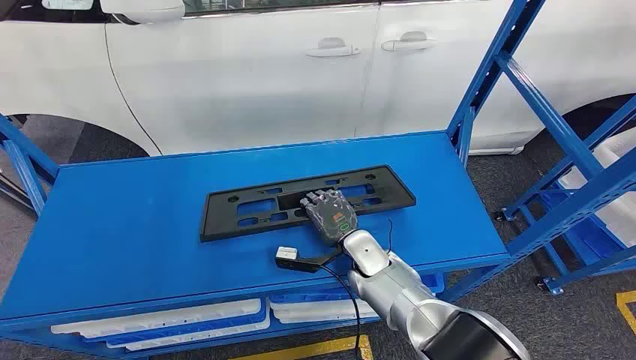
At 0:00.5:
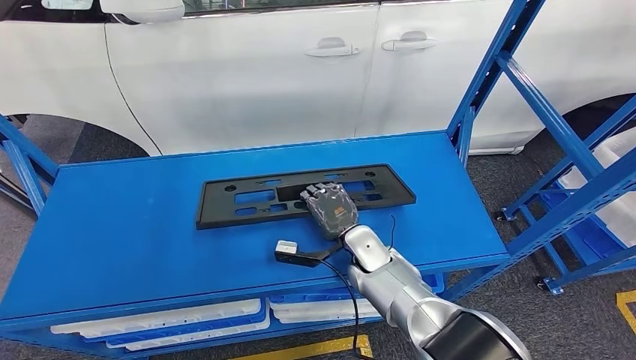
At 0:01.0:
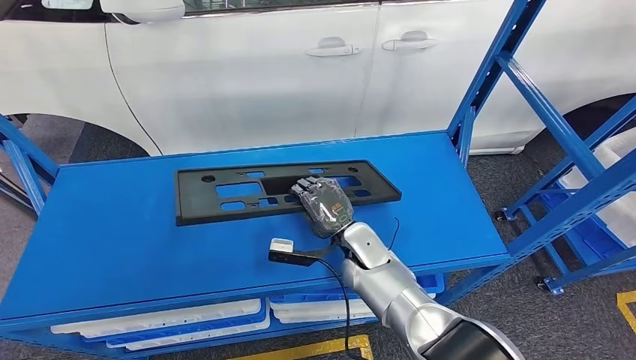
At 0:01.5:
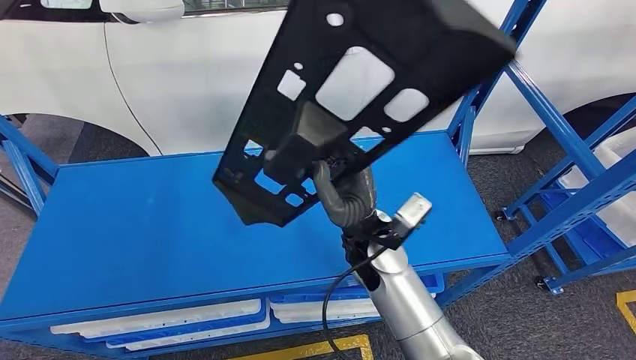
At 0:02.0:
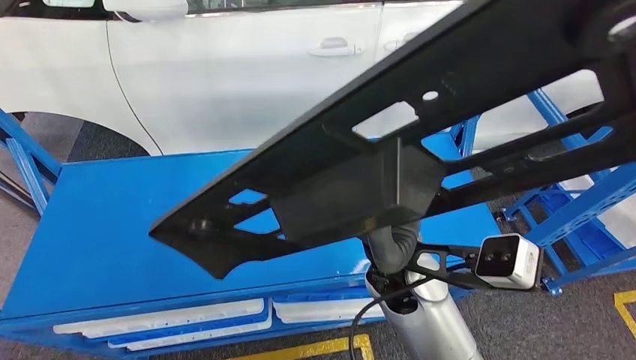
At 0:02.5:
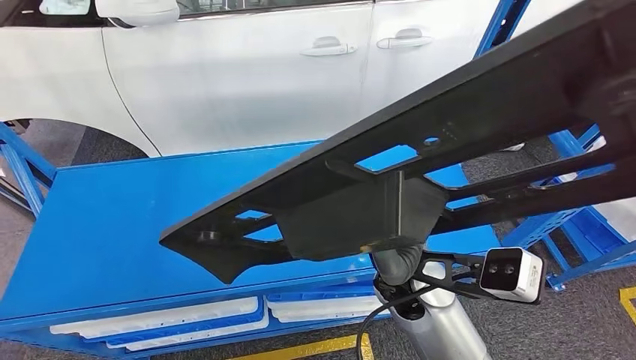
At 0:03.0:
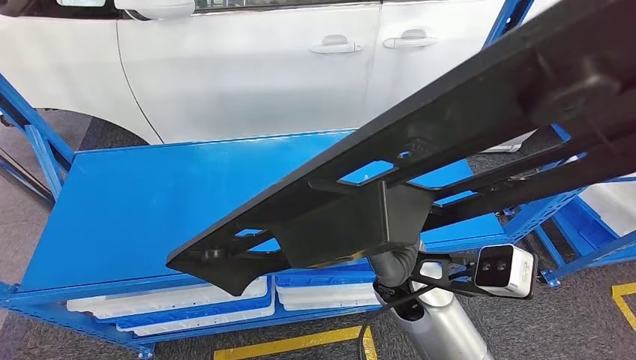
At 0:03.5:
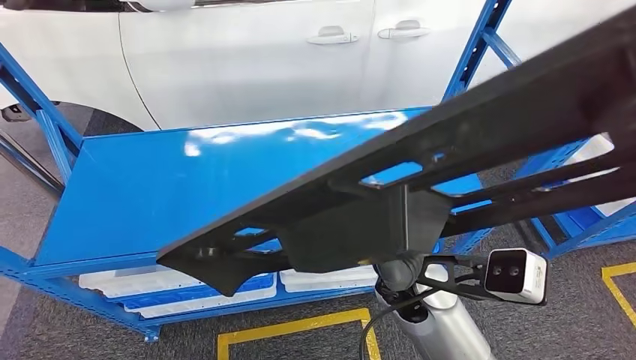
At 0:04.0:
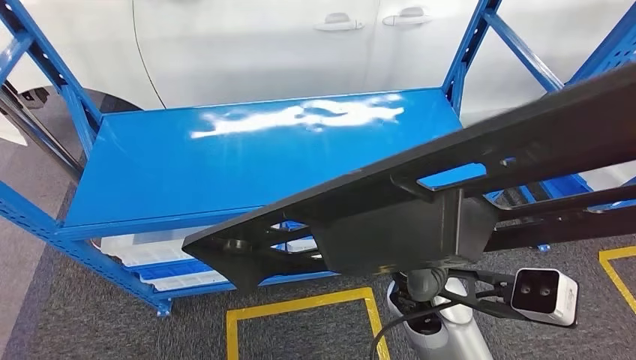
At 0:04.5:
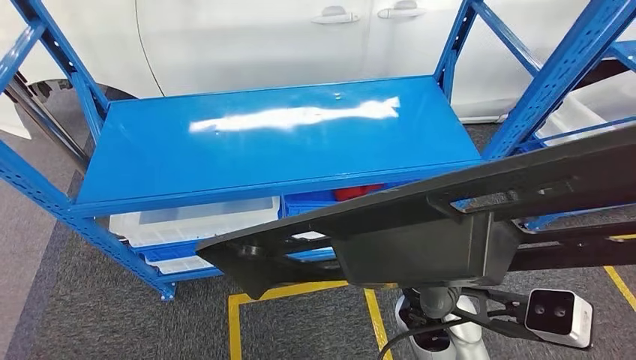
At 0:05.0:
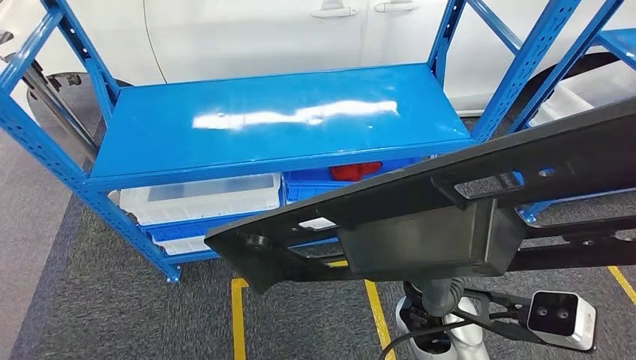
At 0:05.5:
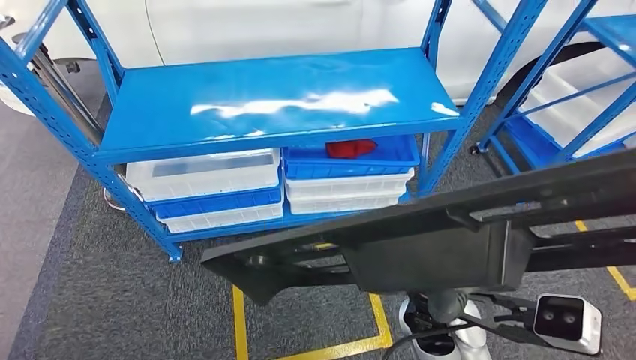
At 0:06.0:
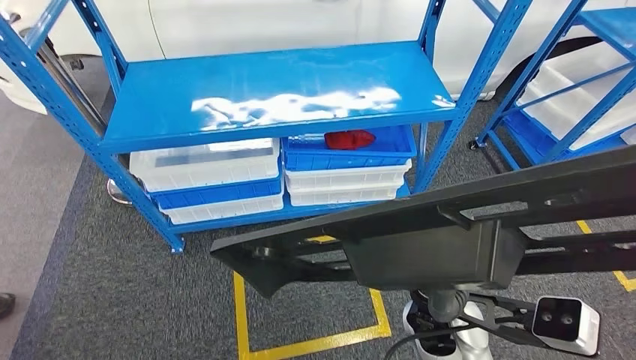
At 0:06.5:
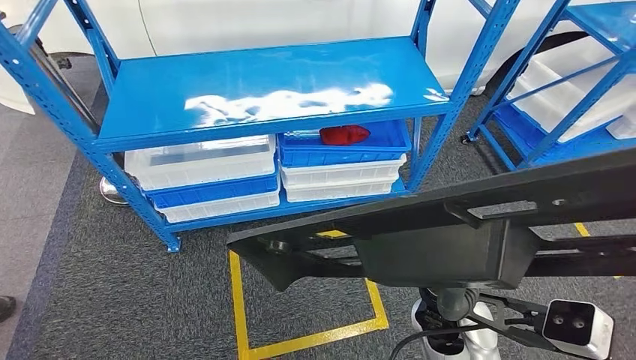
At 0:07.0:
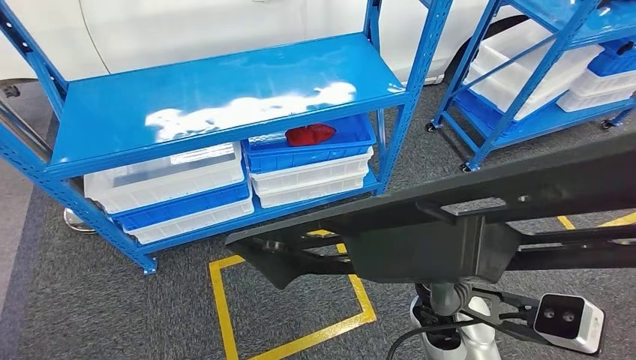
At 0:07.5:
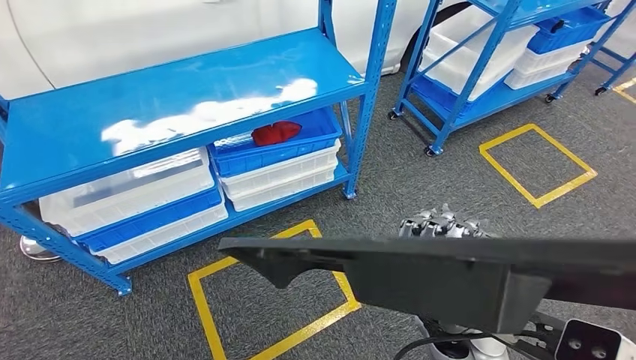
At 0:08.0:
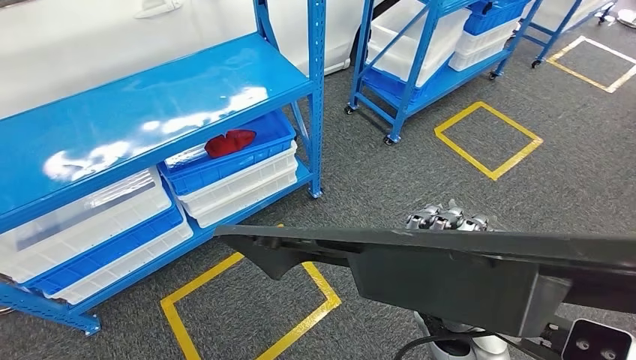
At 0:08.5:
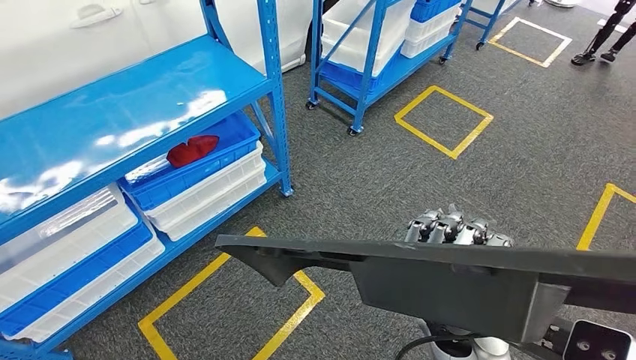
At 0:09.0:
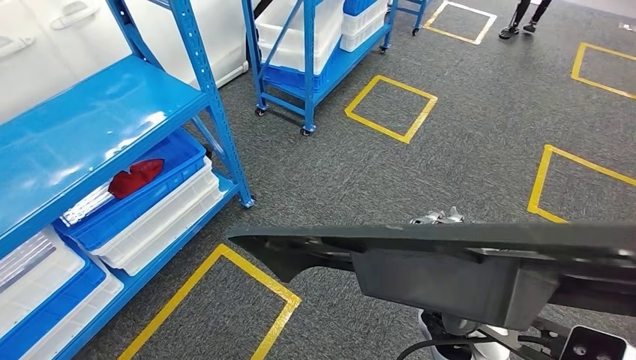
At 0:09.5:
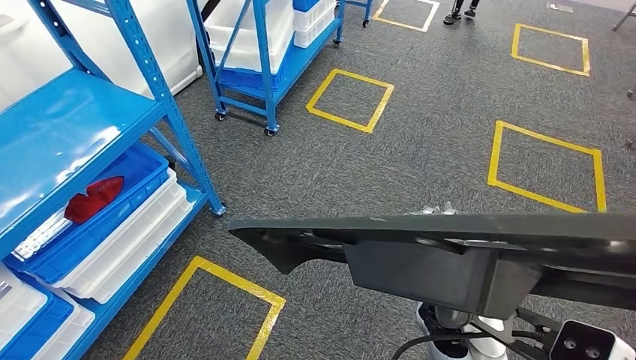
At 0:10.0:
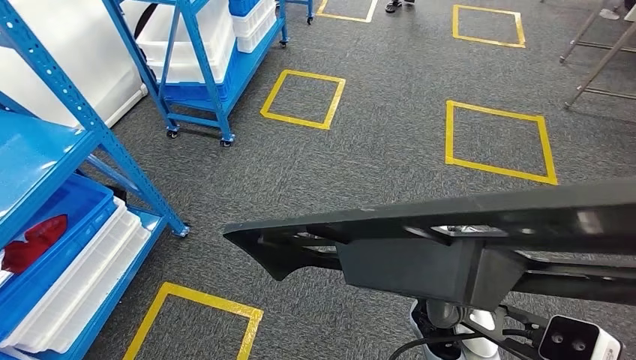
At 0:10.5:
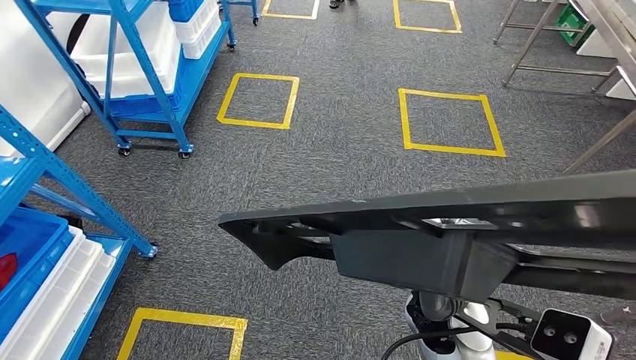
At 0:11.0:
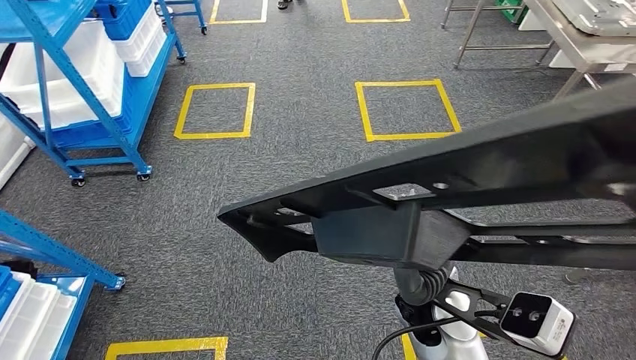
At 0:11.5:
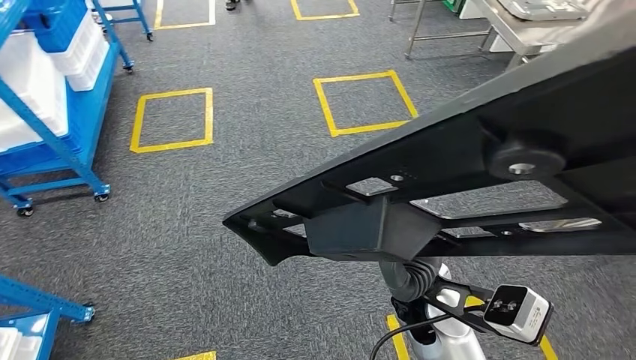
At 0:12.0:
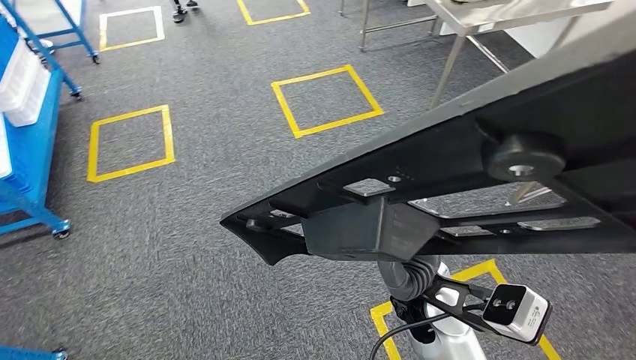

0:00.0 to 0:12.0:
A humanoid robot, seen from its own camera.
Step, 0:00.0 to 0:01.0: Pick up the large material from the shelf.

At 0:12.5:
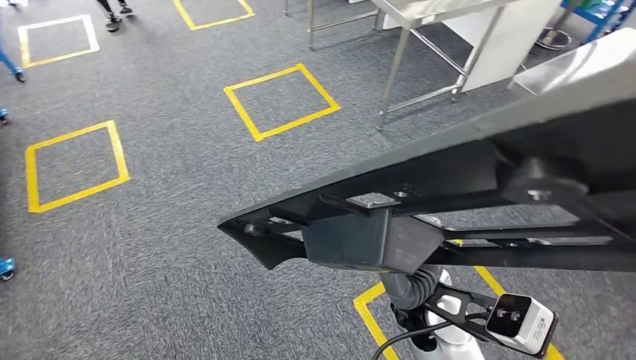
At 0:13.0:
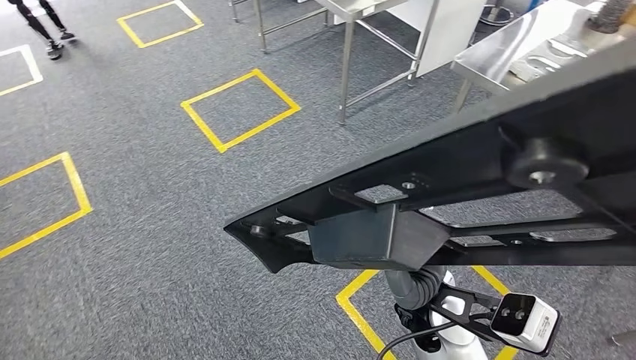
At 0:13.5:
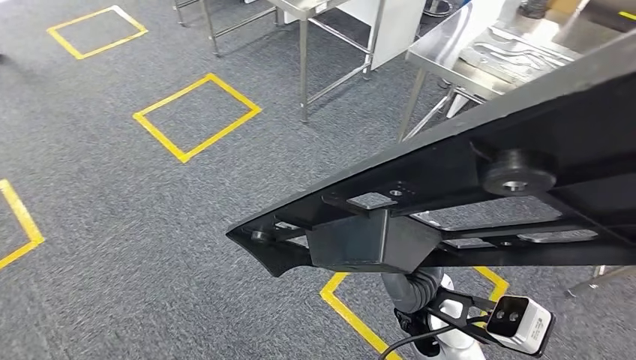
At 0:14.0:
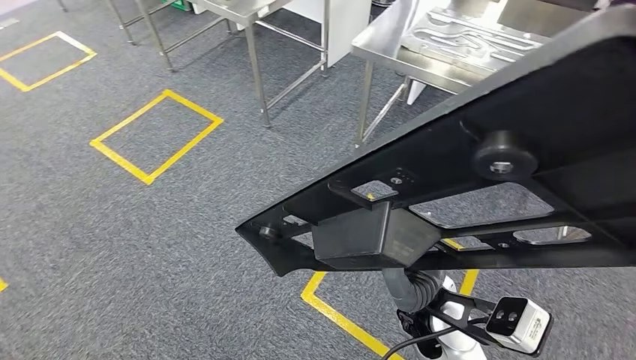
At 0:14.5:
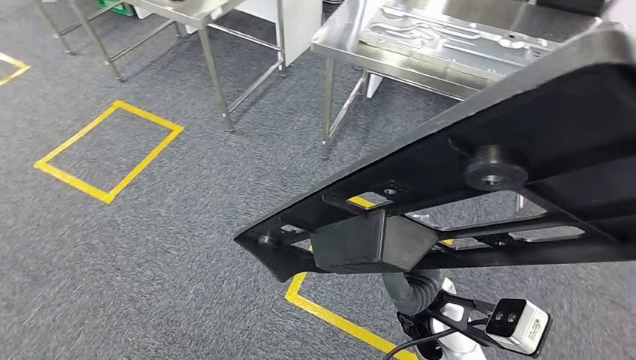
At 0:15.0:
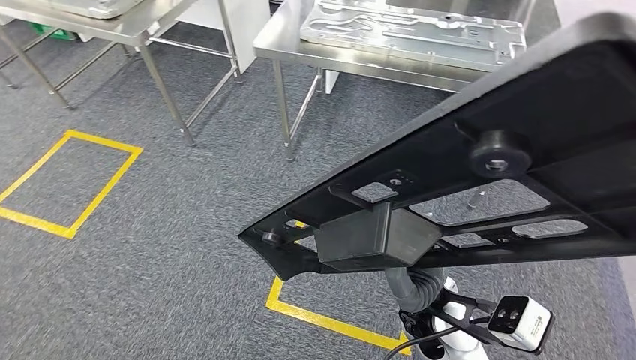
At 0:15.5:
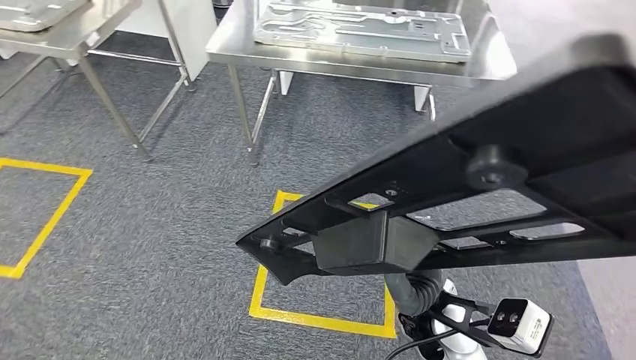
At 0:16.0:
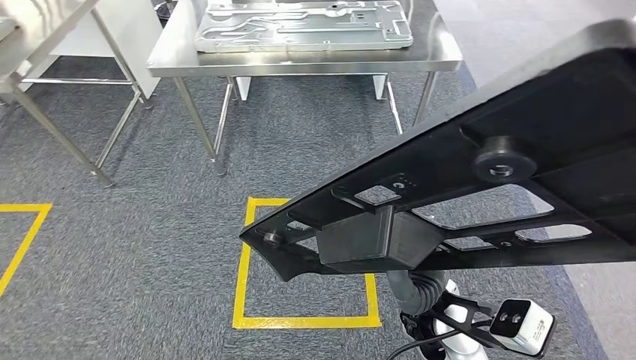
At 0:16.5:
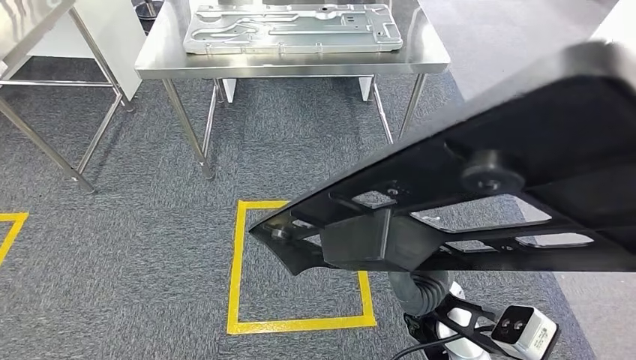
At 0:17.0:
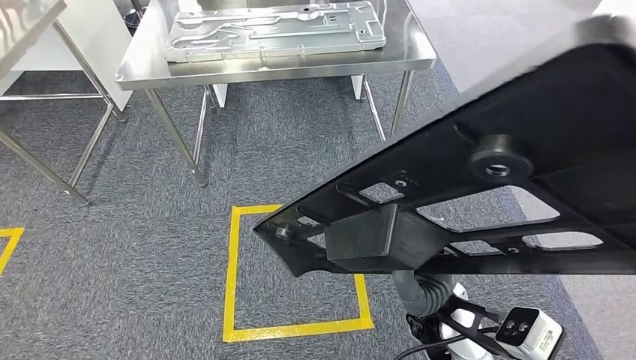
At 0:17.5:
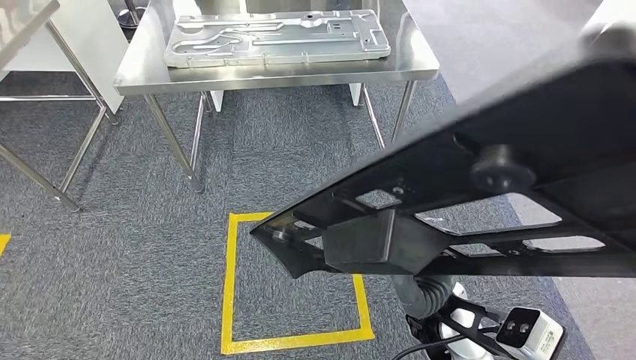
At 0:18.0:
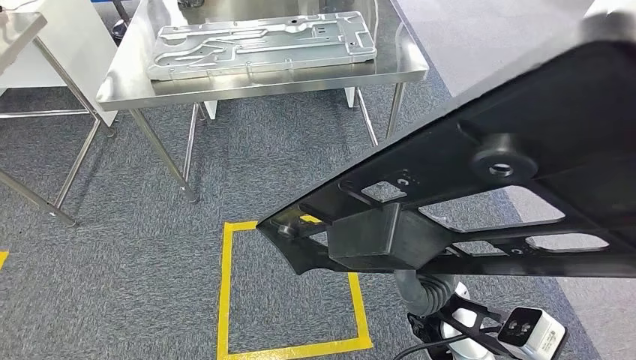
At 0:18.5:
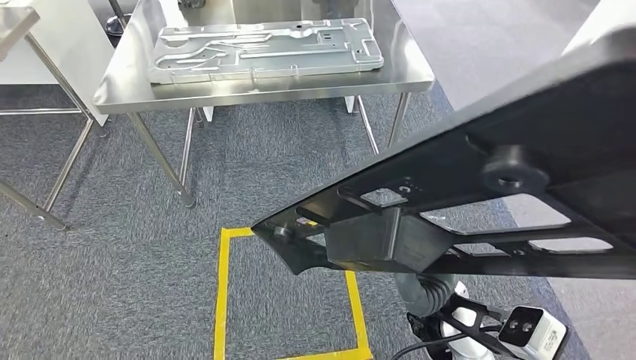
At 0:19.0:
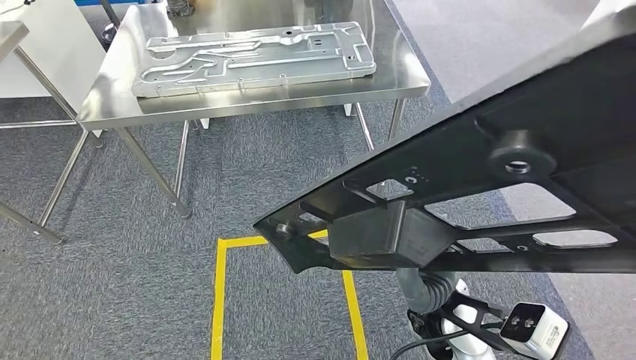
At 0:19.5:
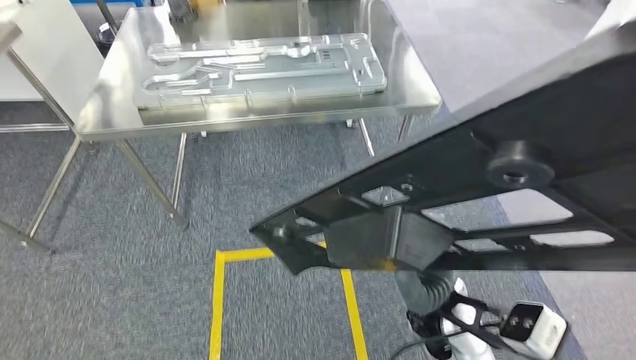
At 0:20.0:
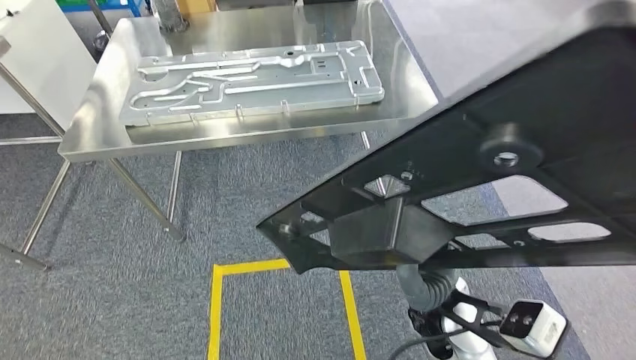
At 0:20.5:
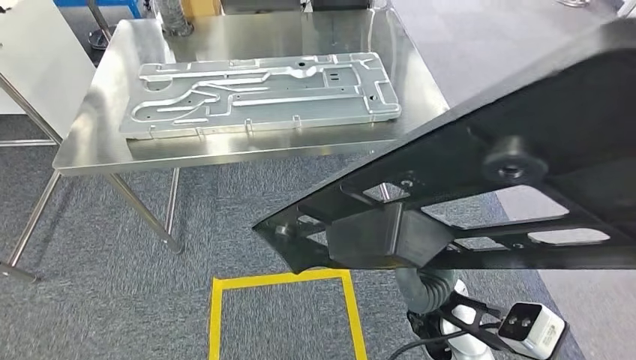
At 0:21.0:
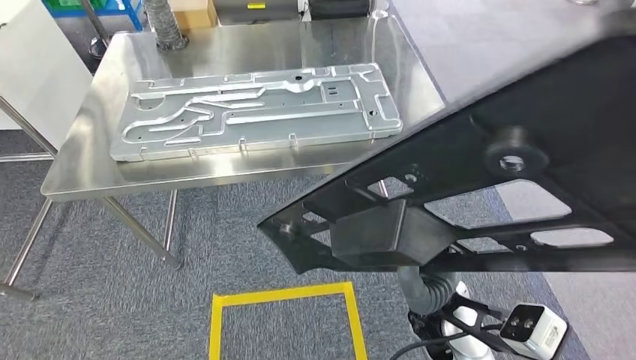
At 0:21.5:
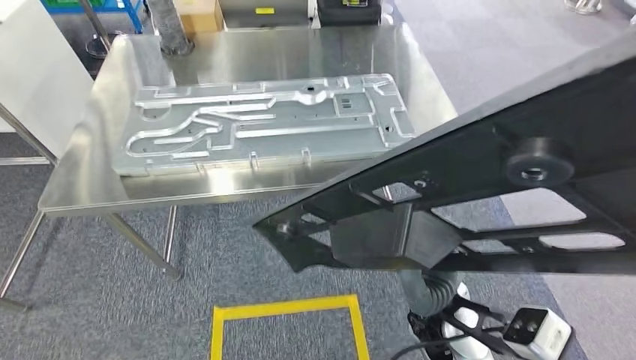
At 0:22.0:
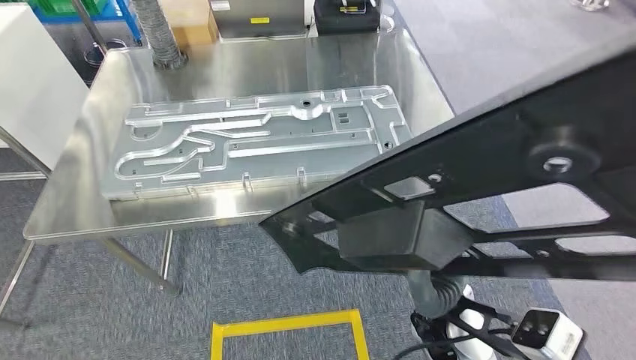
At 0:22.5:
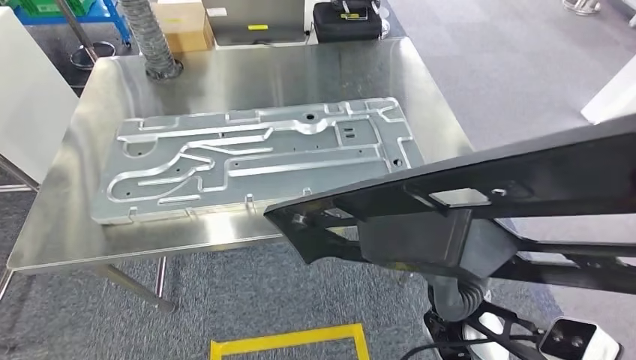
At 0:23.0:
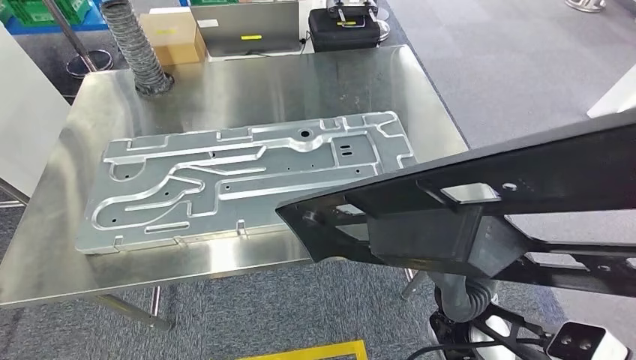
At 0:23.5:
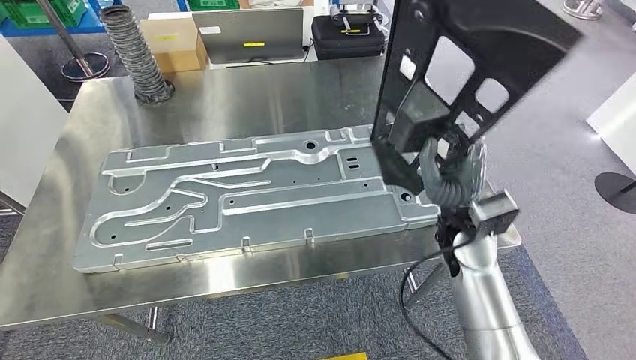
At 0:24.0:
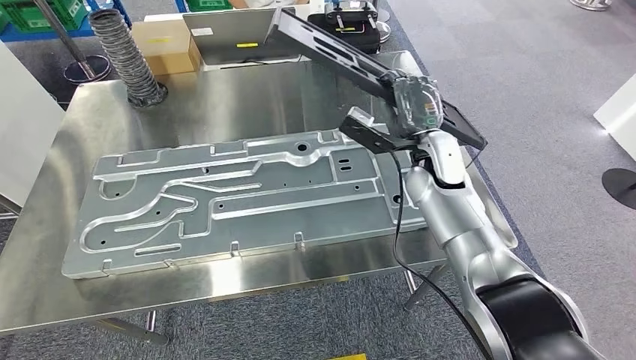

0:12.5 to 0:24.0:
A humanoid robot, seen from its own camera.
Step, 0:12.5 to 0:22.5: Move the large material to the workbench.
